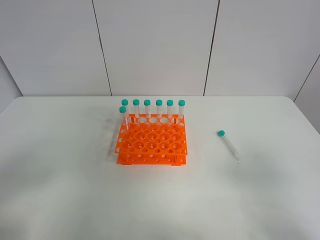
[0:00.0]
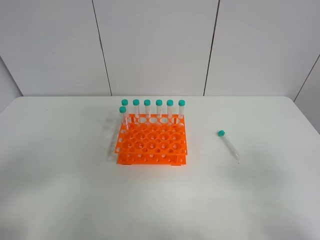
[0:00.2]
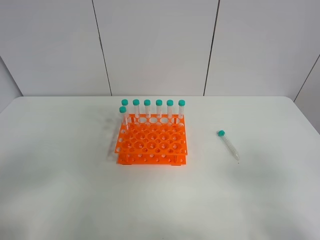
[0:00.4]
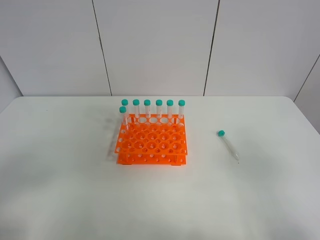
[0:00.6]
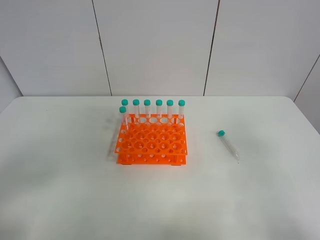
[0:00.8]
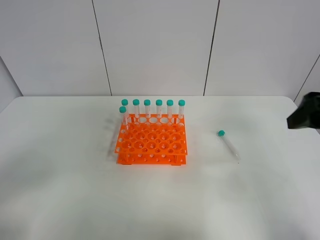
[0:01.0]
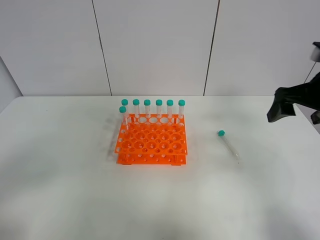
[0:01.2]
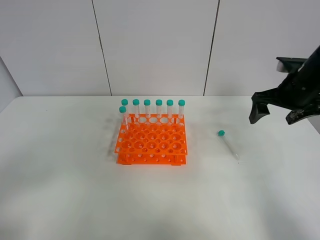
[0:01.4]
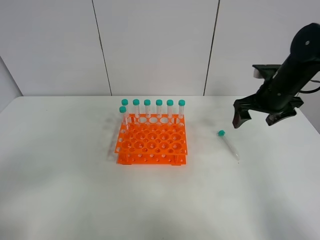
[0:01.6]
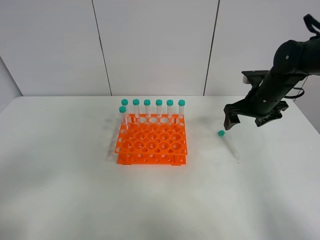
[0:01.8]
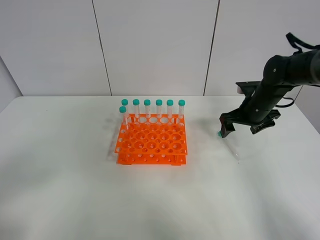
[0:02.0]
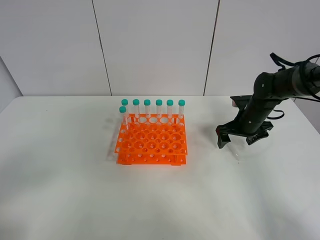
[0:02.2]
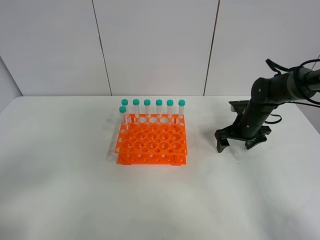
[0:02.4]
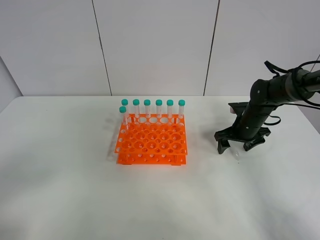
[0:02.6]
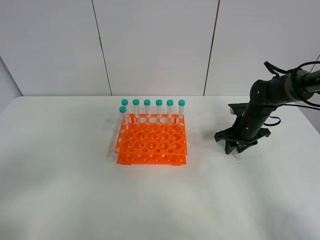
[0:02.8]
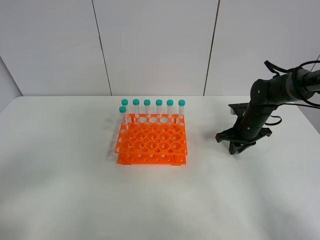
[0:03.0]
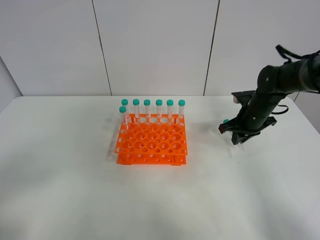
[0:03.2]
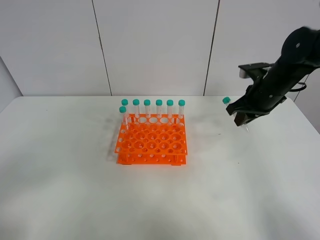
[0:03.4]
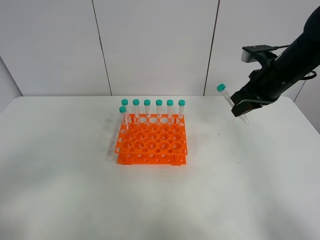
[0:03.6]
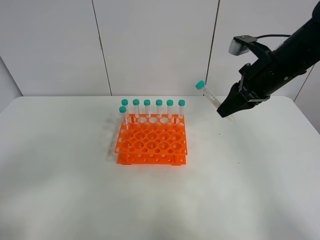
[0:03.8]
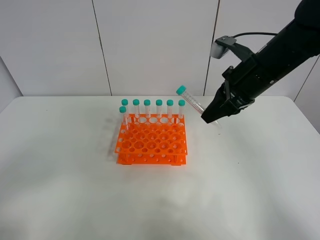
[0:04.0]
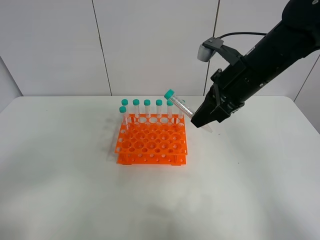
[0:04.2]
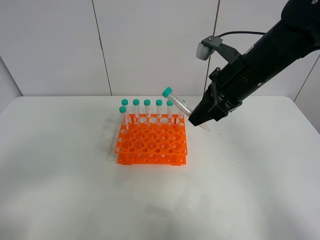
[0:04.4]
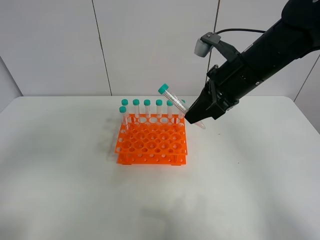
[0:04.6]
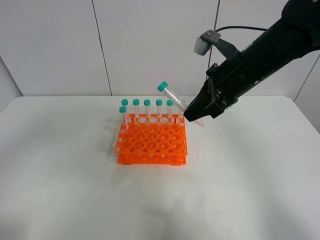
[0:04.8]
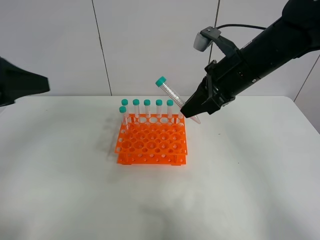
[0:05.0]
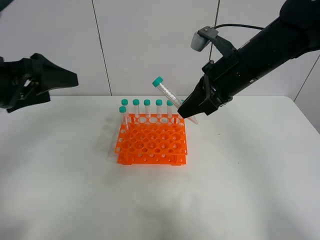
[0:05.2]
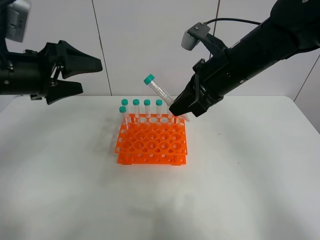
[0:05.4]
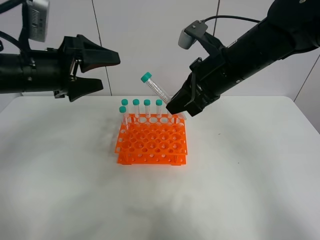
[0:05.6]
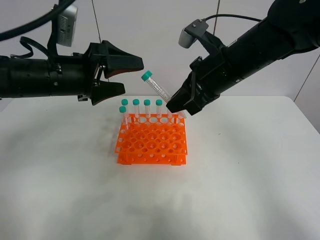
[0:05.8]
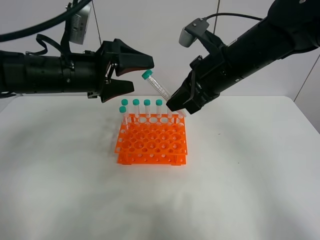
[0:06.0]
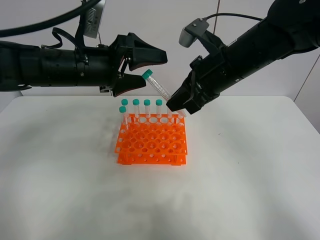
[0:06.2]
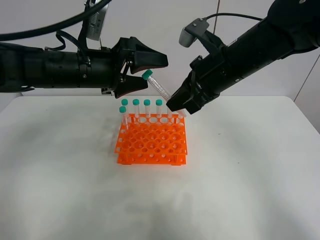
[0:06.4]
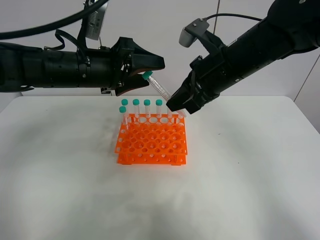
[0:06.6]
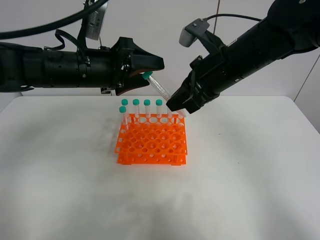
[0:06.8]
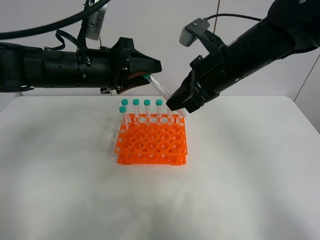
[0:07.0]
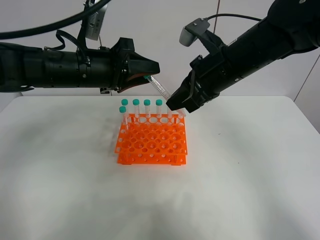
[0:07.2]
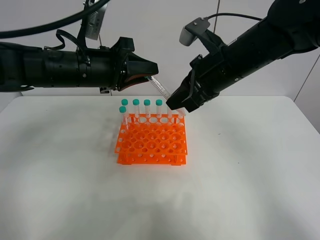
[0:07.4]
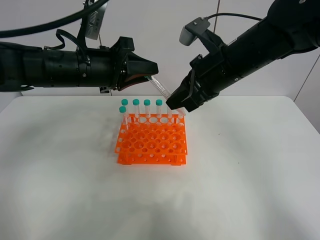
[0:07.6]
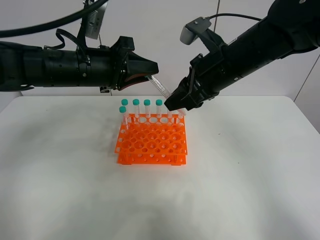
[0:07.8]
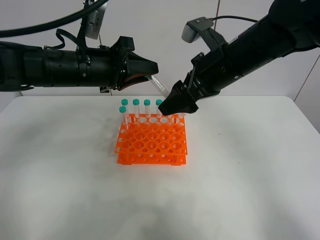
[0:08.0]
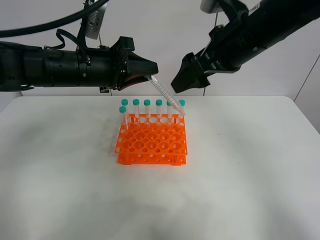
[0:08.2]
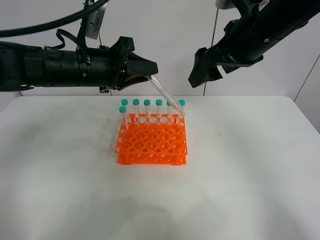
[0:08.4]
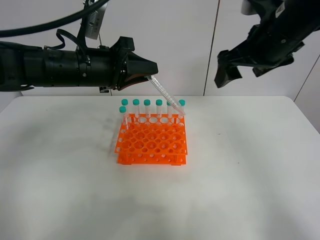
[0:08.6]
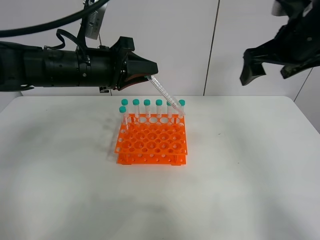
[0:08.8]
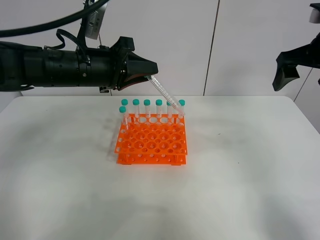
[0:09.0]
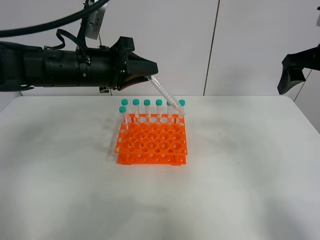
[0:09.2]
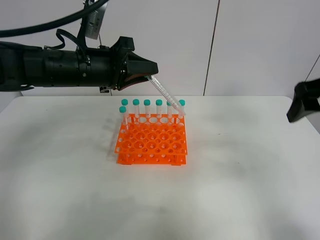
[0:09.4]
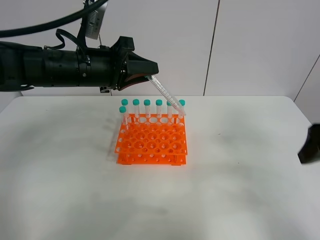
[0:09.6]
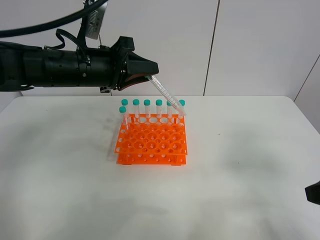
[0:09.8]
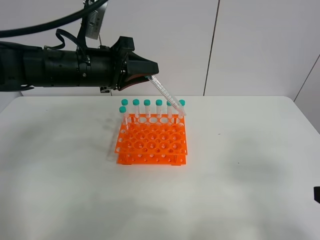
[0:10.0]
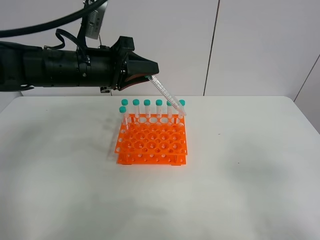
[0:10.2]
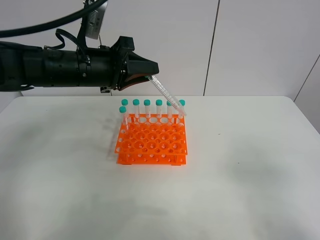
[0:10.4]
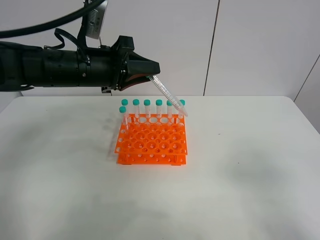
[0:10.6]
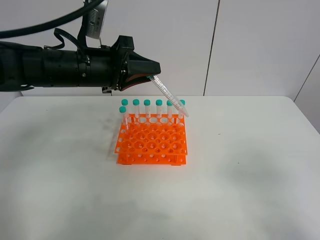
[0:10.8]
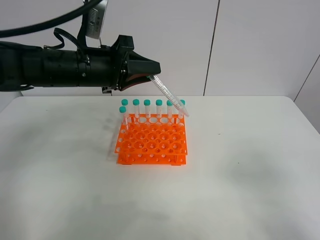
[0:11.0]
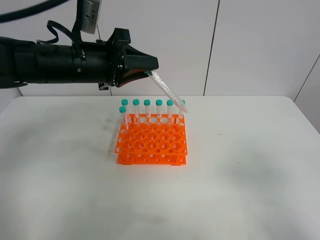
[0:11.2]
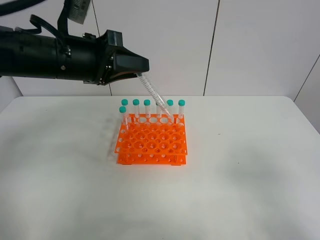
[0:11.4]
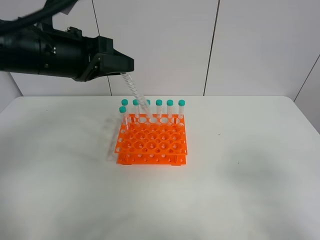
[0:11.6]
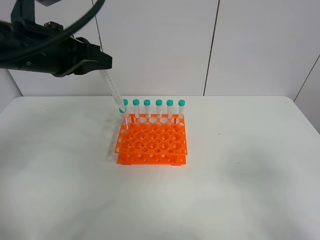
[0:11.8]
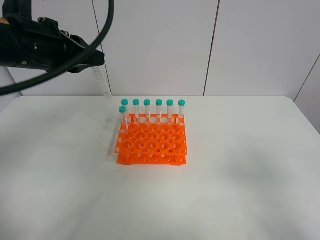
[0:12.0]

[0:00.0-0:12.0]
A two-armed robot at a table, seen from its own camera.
Task of the whole recording: Put the test tube on the table back onto the test tube rack.
Step, 0:00.0 to 0:02.8: Pick up the test tube with the right gripper.
Step, 0:03.0 to 0:08.0: Move the test tube from the right gripper to the left gripper.
0:00.0 to 0:01.6: The right gripper shifts about 35 cm forward.
0:01.6 to 0:03.0: The right gripper heads downward, covering roughly 10 cm, and closes.
0:03.0 to 0:04.4: The right gripper travels upward, to the left and backward by roughly 25 cm.
0:04.4 to 0:06.0: The left gripper shifts some 35 cm forward and to the right.
0:06.0 to 0:07.6: The left gripper closes its fingers.
0:07.6 to 0:09.0: The right gripper travels to the right by some 20 cm, and opens up.
0:09.0 to 0:10.4: The right gripper is displaced backward by approximately 30 cm.
0:10.4 to 0:12.0: The left gripper is displaced upward and backward by about 10 cm.

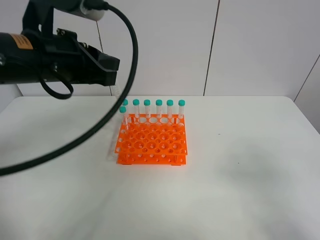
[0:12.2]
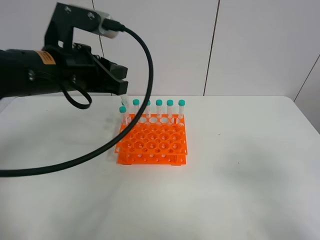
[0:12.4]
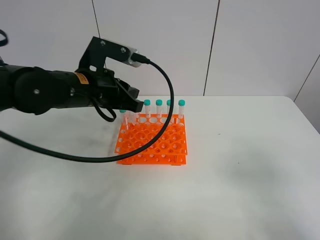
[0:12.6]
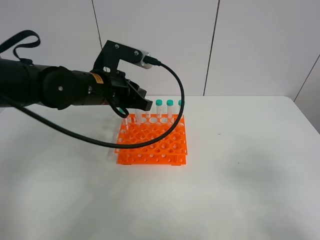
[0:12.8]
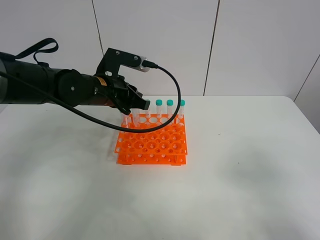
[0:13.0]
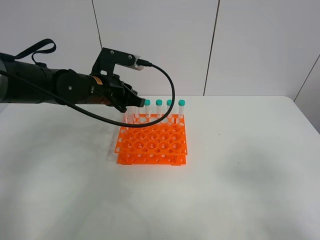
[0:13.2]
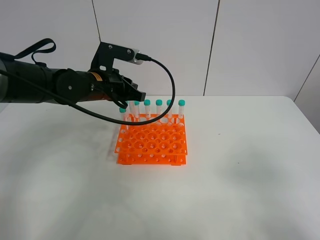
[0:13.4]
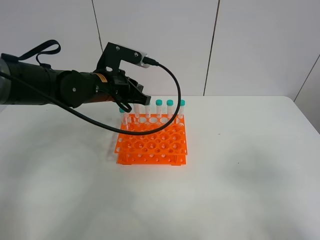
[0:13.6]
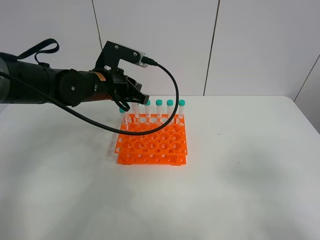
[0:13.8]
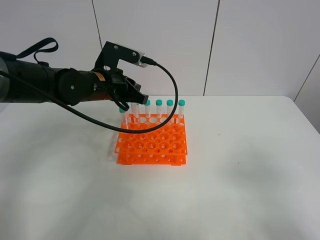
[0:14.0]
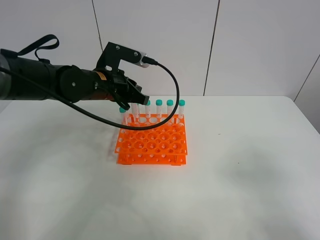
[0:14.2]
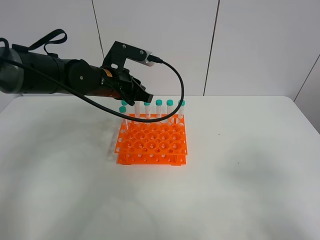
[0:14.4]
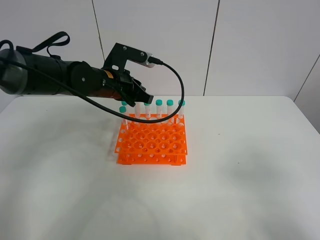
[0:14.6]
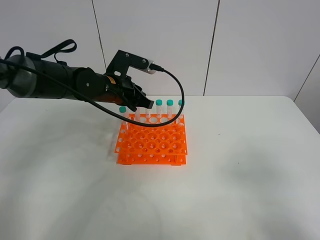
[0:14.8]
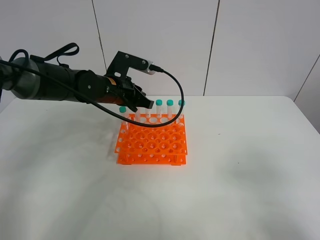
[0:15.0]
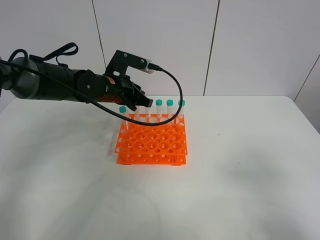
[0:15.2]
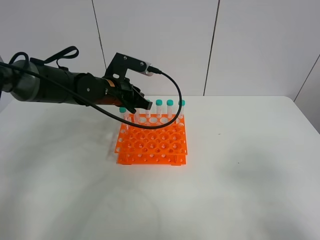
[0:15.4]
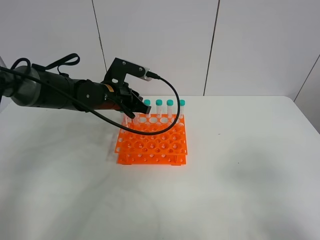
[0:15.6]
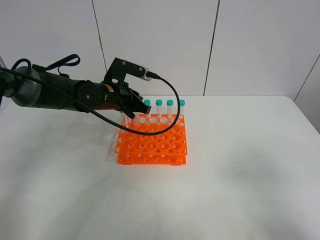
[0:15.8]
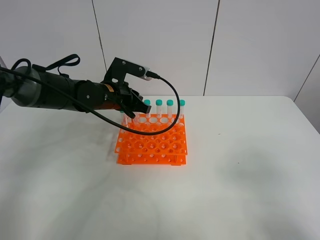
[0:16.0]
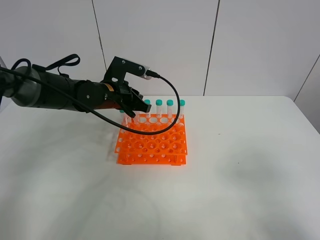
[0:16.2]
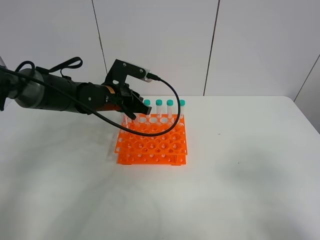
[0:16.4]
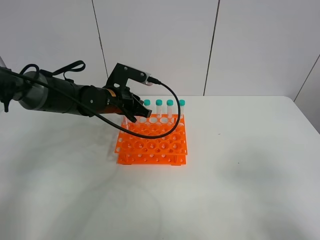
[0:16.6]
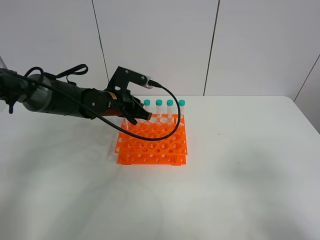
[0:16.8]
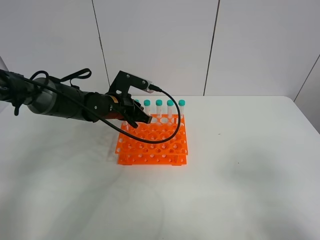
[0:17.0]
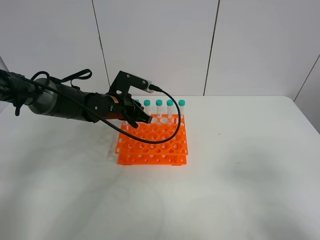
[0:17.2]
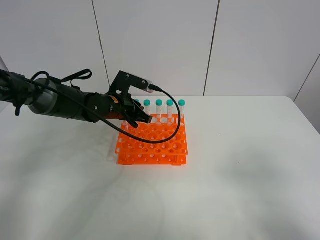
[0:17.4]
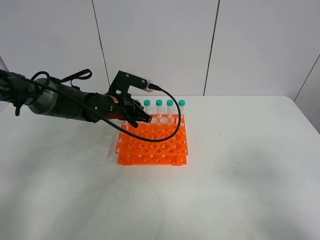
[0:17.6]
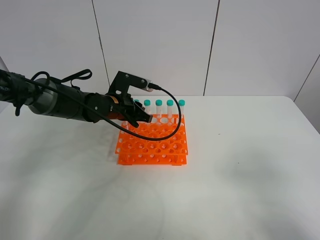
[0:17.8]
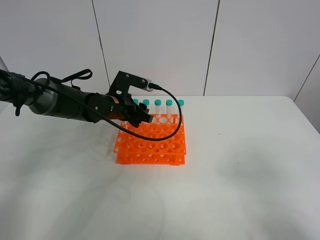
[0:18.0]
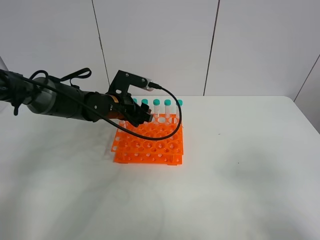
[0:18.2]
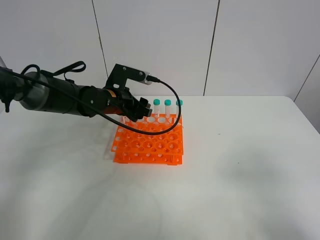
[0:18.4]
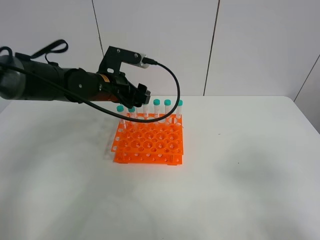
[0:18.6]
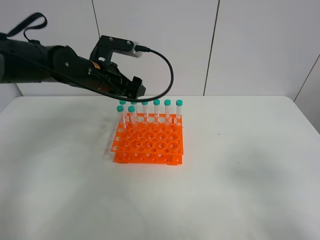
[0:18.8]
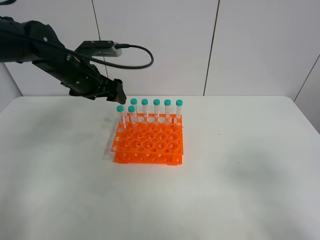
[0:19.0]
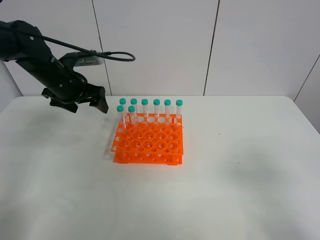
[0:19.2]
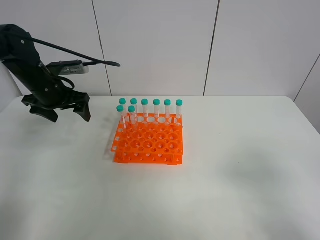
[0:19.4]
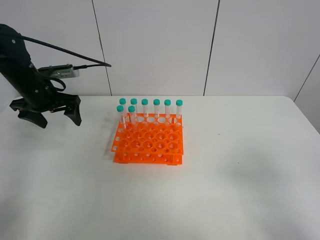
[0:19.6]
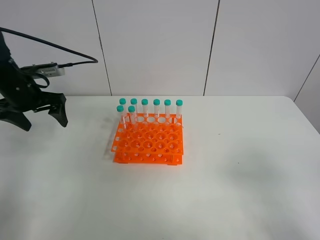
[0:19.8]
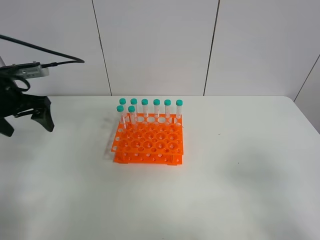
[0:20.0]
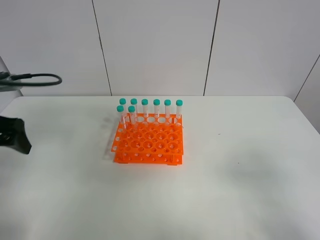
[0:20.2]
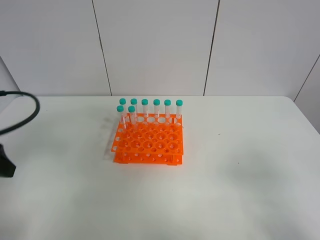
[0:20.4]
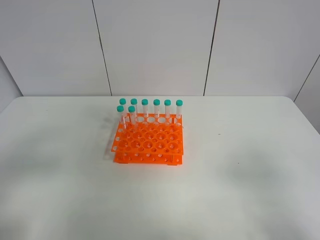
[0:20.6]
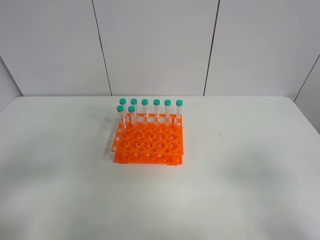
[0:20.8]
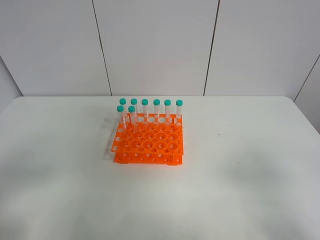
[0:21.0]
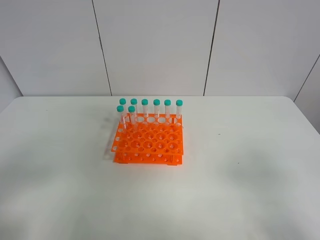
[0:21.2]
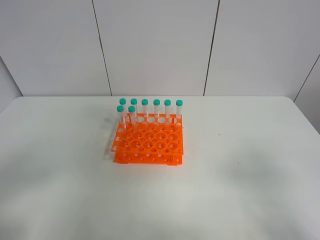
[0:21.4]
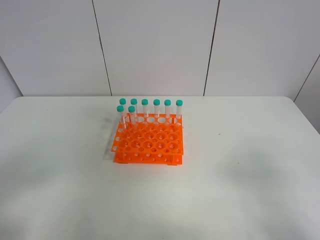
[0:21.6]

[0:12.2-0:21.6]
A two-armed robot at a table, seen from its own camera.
Task of the whole recording: Put the test tube on the table back onto the test tube rack.
Step, 0:12.2 to 0:17.8: Place the test tube on the test tube rack with the left gripper.
0:12.2 to 0:13.8: The left gripper is displaced forward and downward by some 15 cm.
0:13.8 to 0:15.4: The grippers move only a little.
0:15.4 to 0:17.0: The grippers move only a little.
0:17.0 to 0:18.4: The left gripper opens its fingers.
0:18.4 to 0:20.0: The left gripper moves to the left, upward and backward, about 20 cm.
0:20.0 to 0:21.6: The left gripper moves backward, approximately 30 cm.

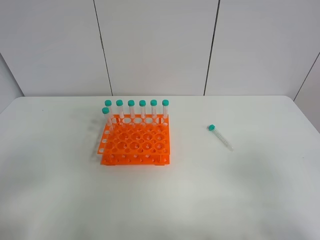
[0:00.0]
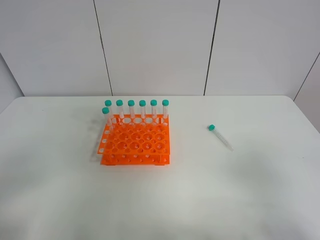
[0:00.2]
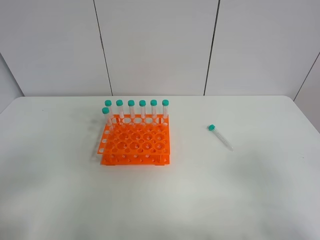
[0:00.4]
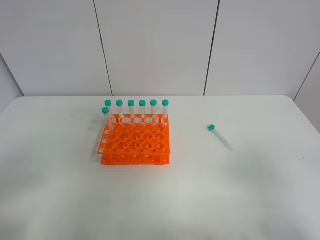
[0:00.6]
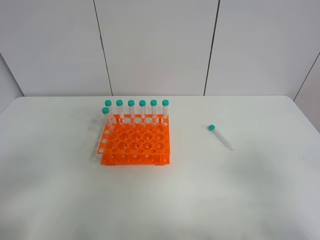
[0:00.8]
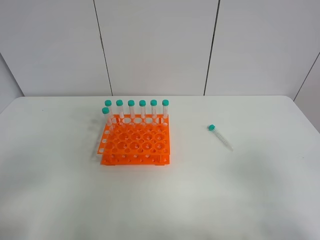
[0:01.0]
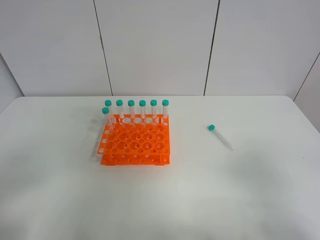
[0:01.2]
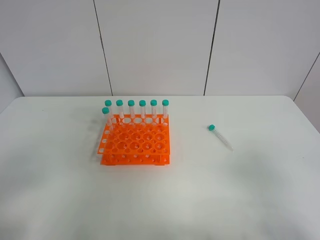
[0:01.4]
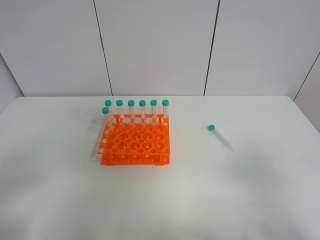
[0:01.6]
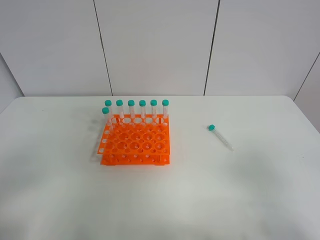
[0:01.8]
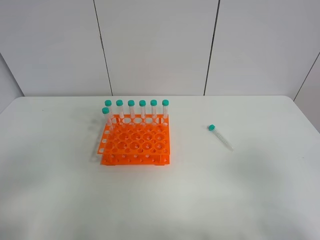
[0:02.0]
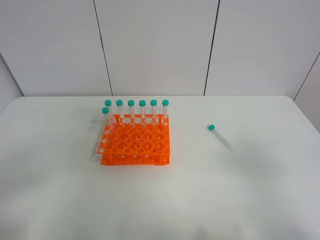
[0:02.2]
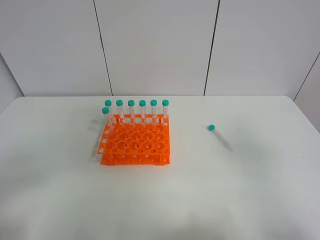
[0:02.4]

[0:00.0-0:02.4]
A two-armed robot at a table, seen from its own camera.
Task of the whole recording: Put the test tube on the table back onto the test tube rack.
0:00.0 to 0:01.2: The two grippers keep their place.
